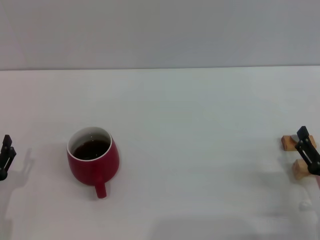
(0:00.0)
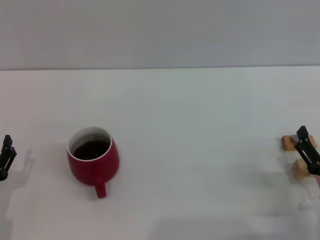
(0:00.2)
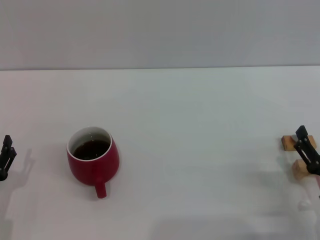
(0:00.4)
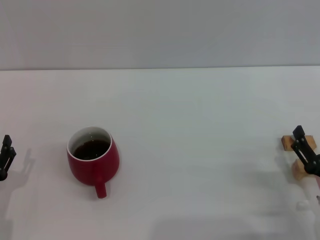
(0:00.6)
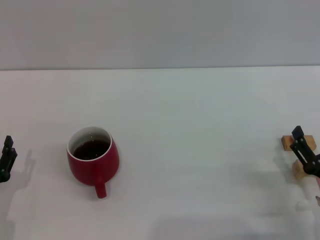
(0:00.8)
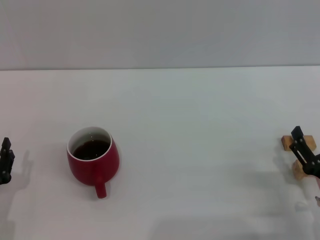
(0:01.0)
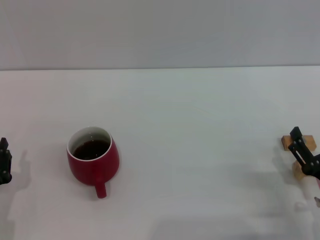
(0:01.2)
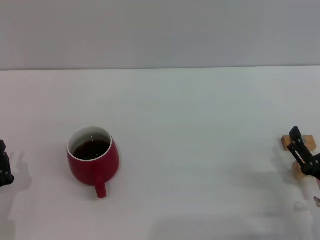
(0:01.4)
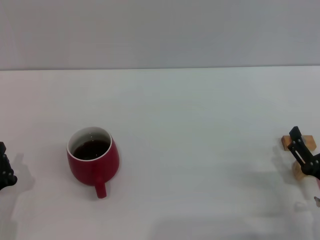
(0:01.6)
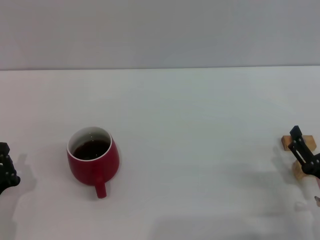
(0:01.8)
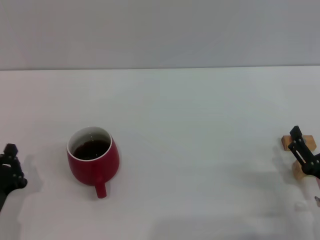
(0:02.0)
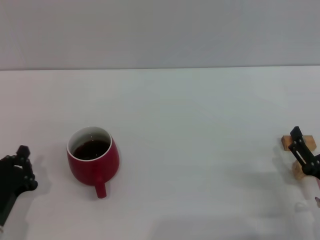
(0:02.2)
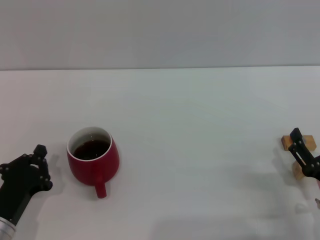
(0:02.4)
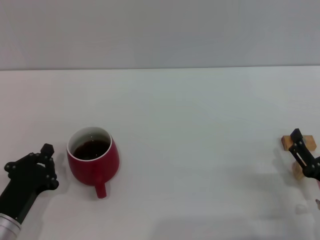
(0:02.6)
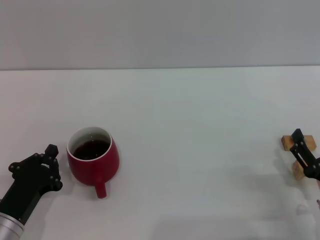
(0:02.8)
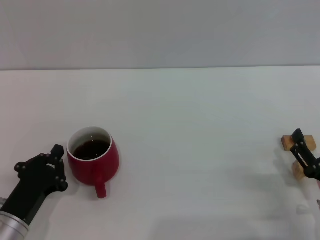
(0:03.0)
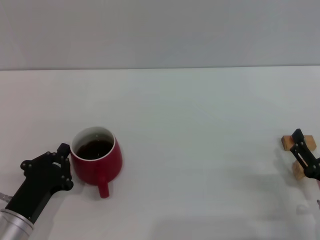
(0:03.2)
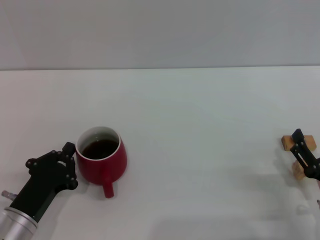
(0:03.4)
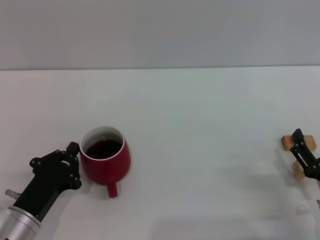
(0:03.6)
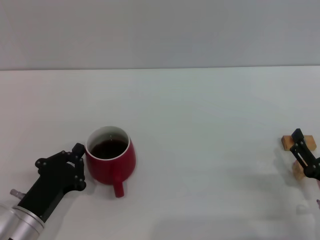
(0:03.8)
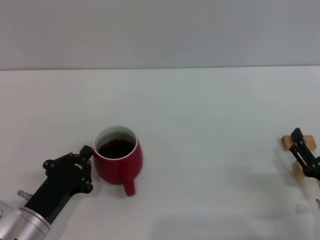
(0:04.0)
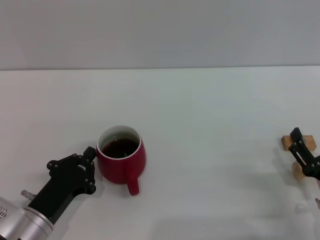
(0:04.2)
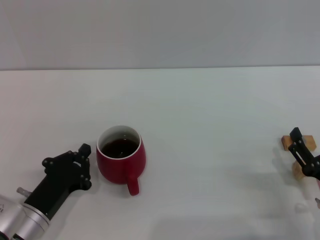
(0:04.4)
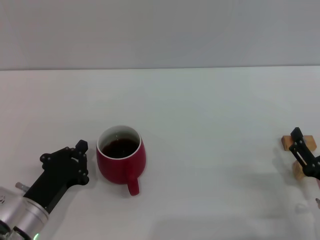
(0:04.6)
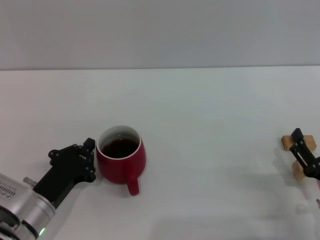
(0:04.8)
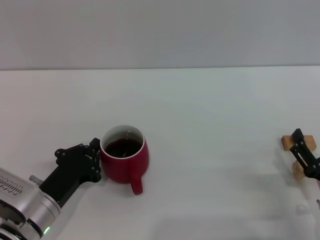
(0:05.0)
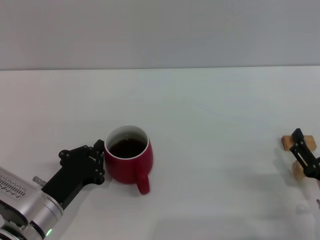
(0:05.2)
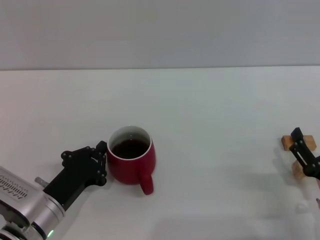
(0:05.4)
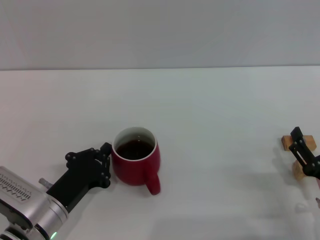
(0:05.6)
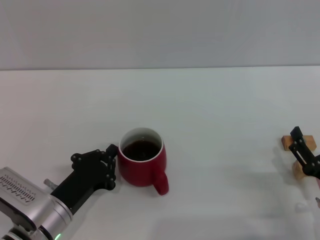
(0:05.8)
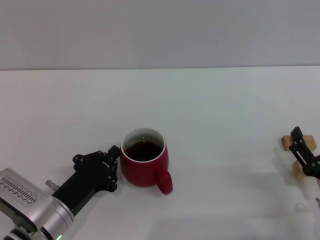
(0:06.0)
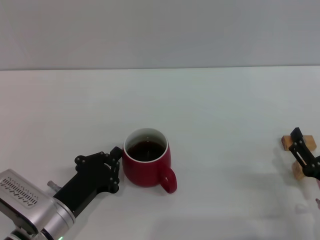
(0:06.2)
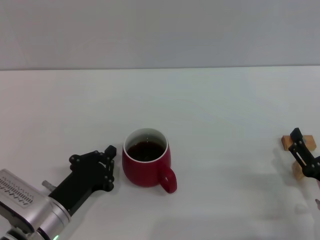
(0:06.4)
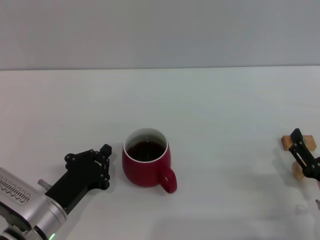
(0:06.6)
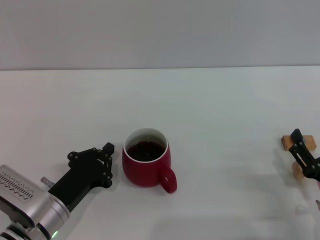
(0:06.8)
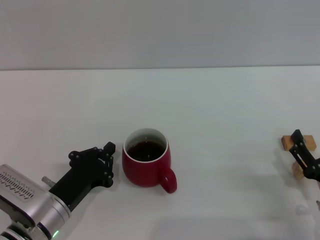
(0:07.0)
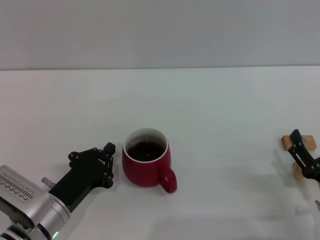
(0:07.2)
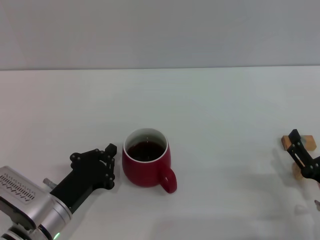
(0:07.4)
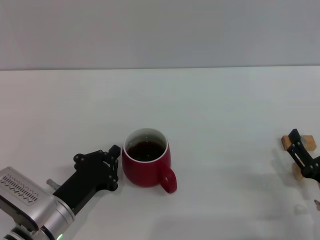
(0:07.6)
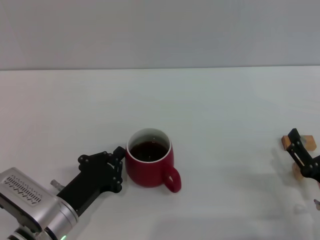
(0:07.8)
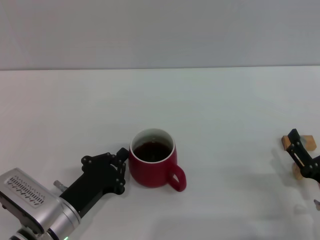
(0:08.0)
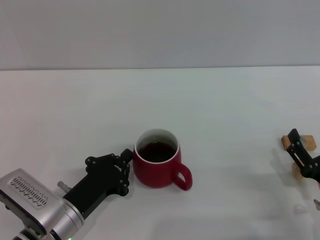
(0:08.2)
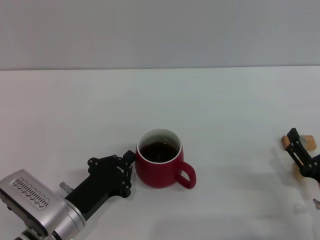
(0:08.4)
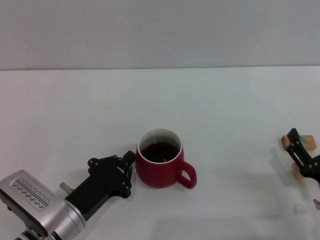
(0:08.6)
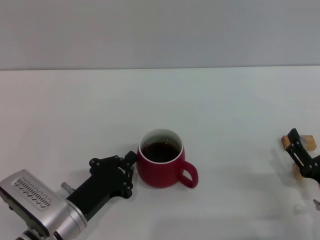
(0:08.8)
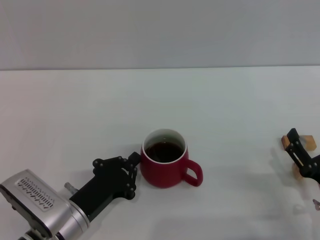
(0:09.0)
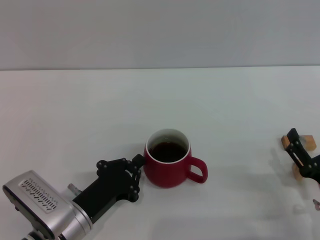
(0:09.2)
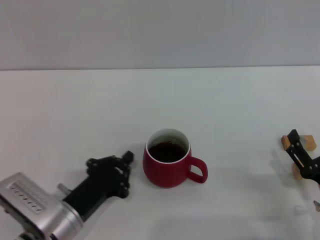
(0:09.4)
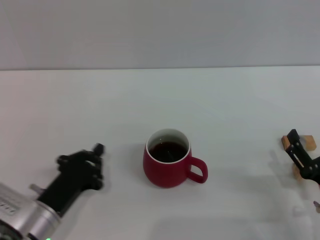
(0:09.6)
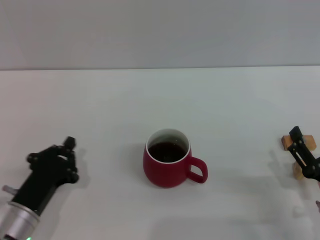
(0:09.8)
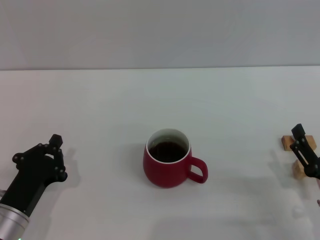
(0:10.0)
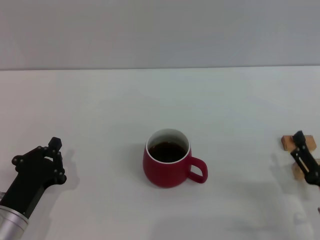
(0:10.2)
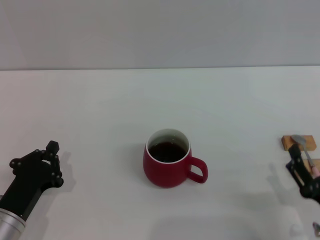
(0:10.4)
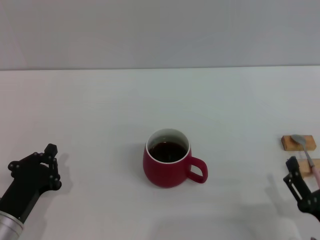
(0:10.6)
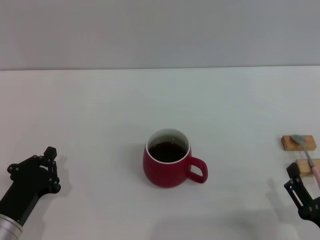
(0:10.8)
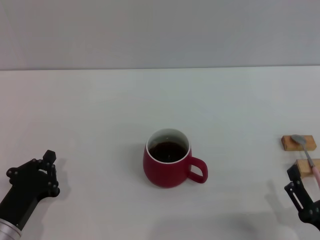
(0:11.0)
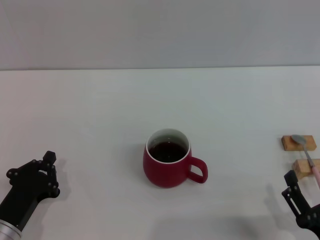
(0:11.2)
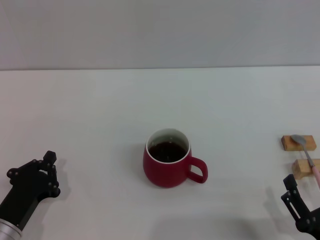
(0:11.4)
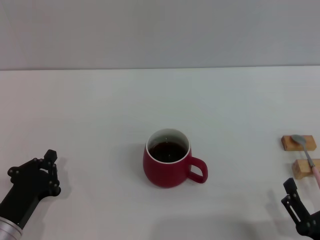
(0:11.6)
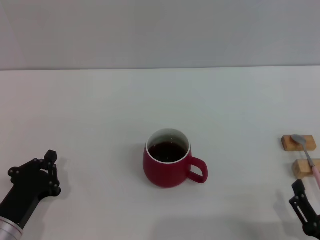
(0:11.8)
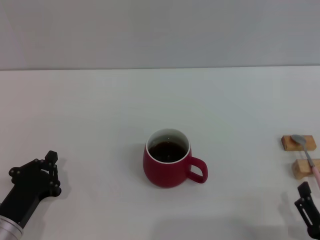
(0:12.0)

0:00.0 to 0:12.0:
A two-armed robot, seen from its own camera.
Task of the whole recording: Move the red cup to the center, lift the pink spoon, stir it three times in the cup, and put the spoon into the cup.
Step, 0:00.0 to 0:09.4: Move the cup with coffee to the center of view with the left gripper.
0:00.0 to 0:01.6: The left gripper closes its fingers.
0:01.6 to 0:03.0: There are only small adjustments of the grippers.
0:03.0 to 0:06.0: The grippers stay close to where they were, moving slightly.
0:06.0 to 0:07.6: The two grippers keep their place.
0:07.6 to 0:09.0: The grippers make only small movements.
0:09.0 to 0:10.4: The left gripper heads to the left, covering roughly 10 cm.
0:10.4 to 0:12.0: The right gripper is displaced backward by roughly 5 cm.

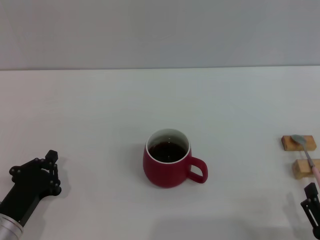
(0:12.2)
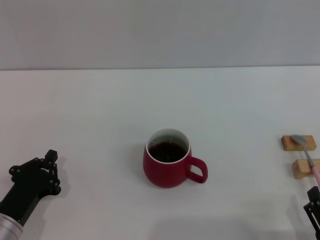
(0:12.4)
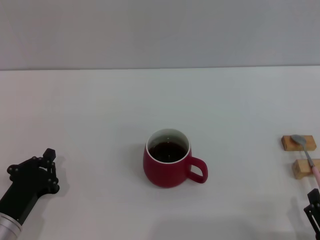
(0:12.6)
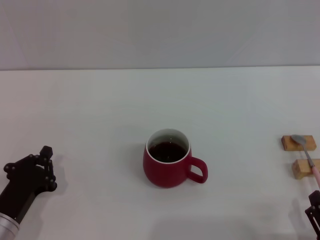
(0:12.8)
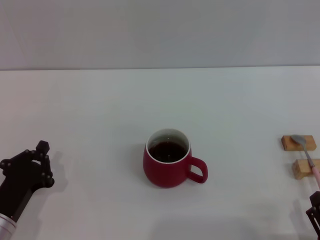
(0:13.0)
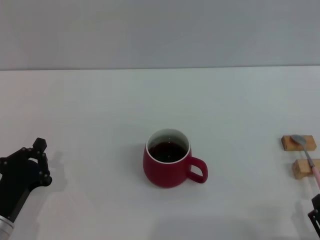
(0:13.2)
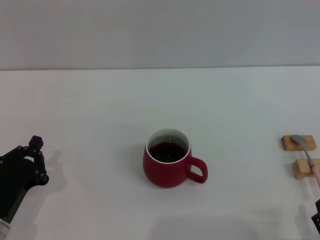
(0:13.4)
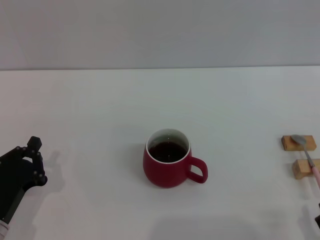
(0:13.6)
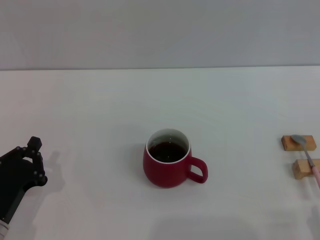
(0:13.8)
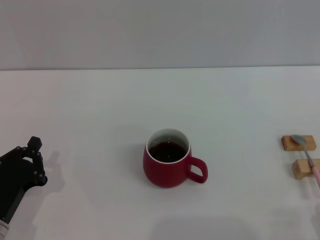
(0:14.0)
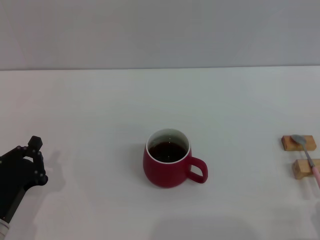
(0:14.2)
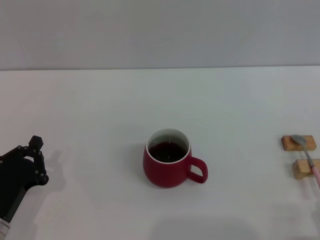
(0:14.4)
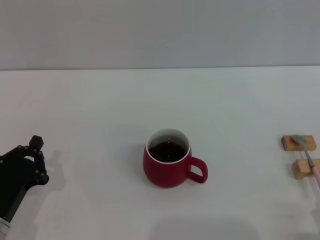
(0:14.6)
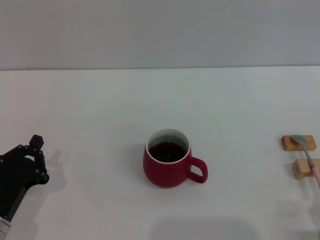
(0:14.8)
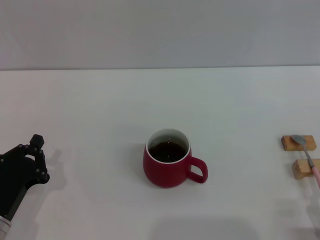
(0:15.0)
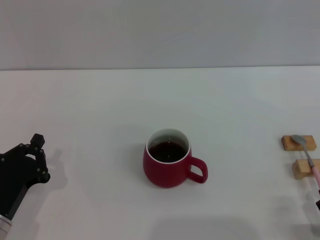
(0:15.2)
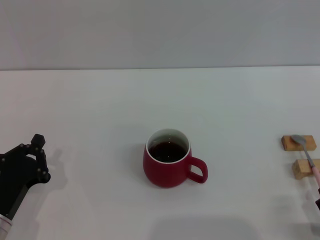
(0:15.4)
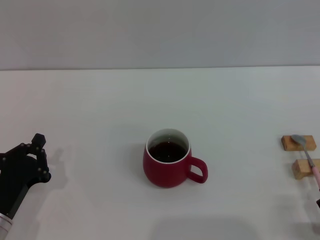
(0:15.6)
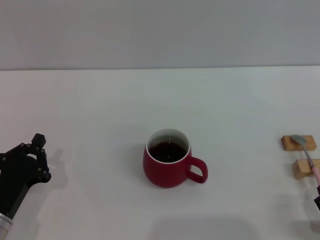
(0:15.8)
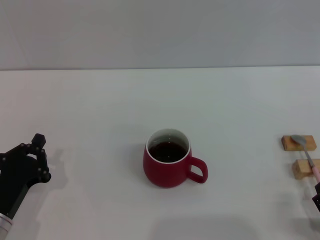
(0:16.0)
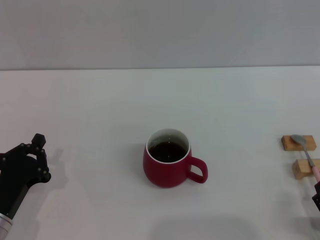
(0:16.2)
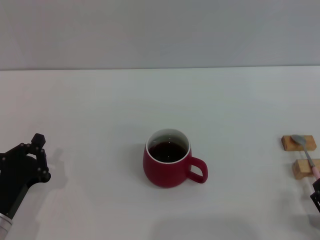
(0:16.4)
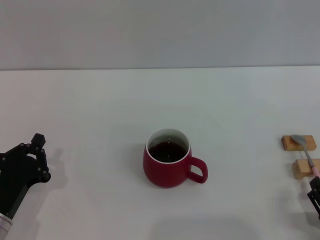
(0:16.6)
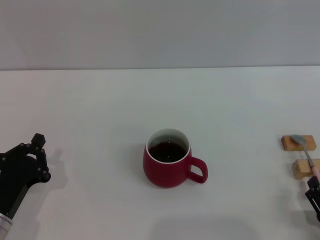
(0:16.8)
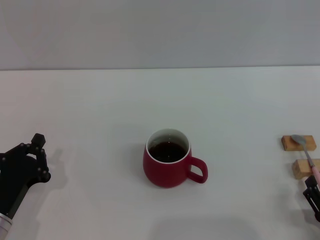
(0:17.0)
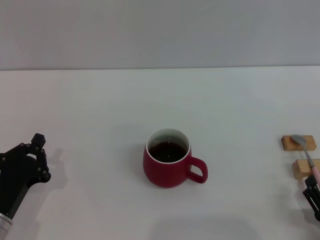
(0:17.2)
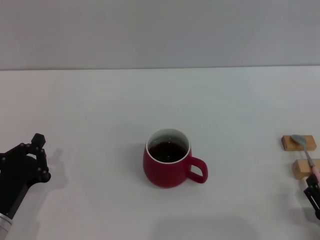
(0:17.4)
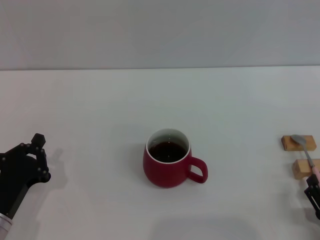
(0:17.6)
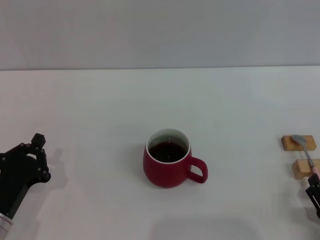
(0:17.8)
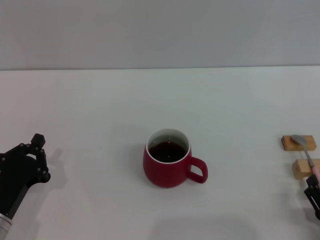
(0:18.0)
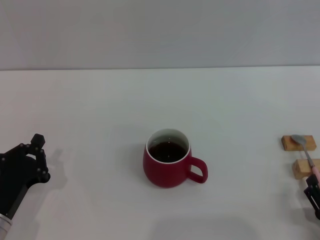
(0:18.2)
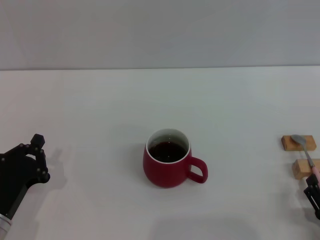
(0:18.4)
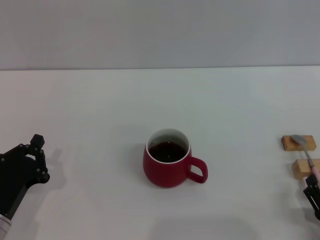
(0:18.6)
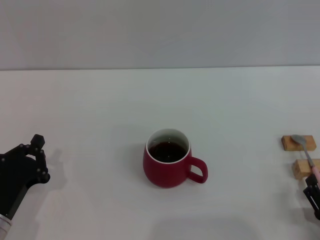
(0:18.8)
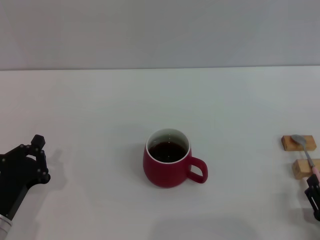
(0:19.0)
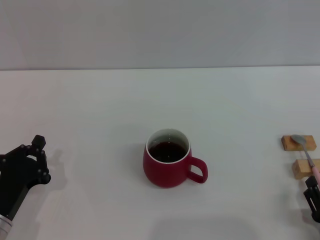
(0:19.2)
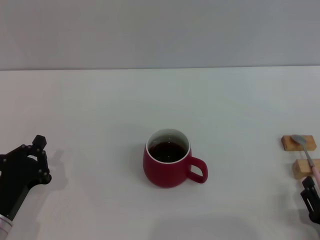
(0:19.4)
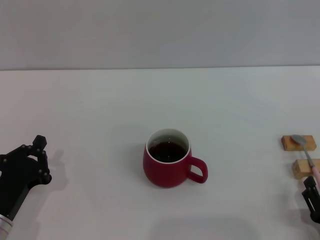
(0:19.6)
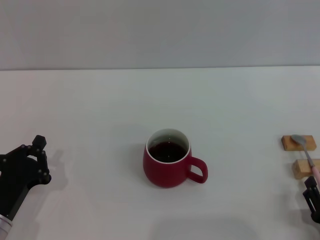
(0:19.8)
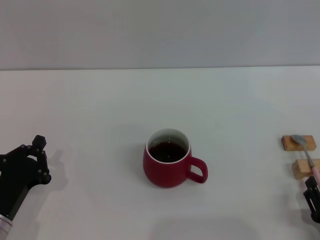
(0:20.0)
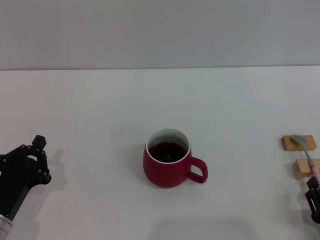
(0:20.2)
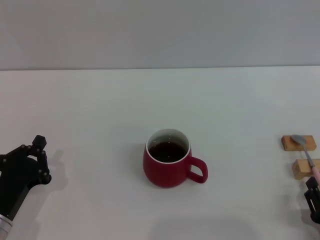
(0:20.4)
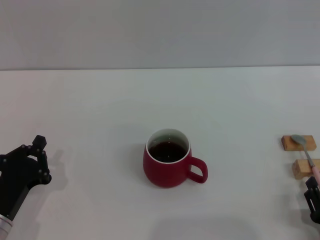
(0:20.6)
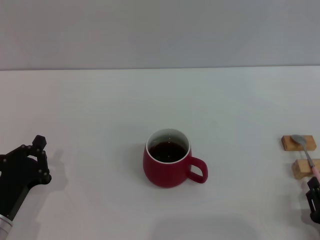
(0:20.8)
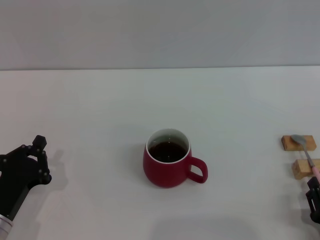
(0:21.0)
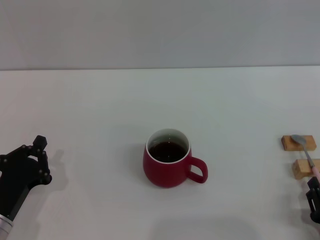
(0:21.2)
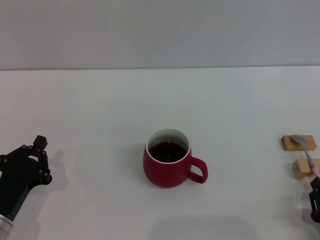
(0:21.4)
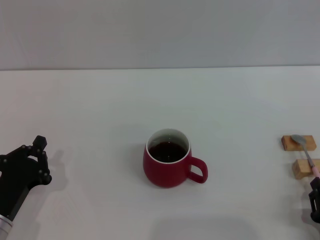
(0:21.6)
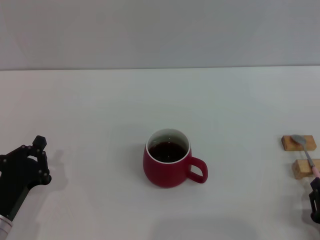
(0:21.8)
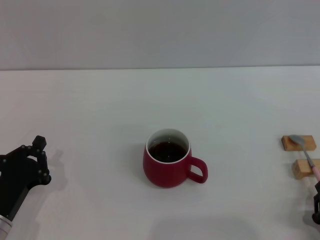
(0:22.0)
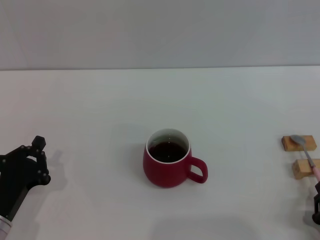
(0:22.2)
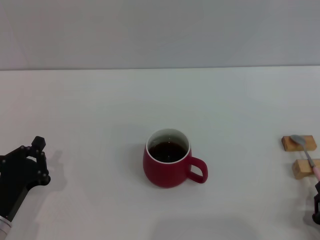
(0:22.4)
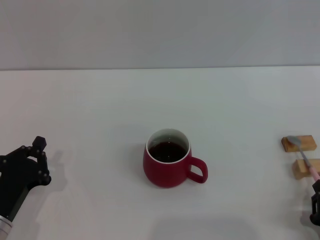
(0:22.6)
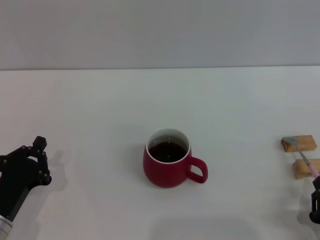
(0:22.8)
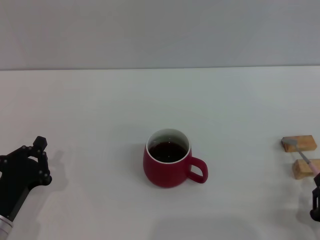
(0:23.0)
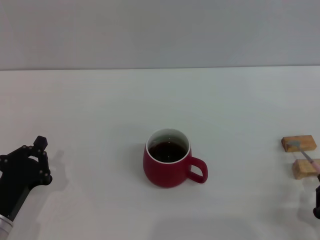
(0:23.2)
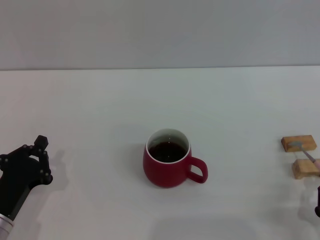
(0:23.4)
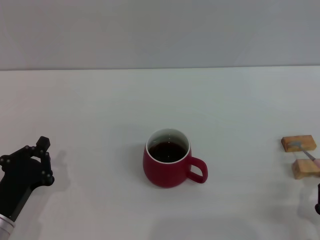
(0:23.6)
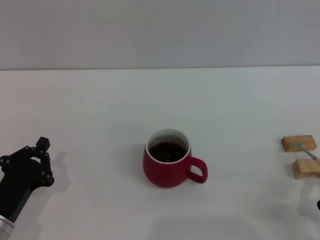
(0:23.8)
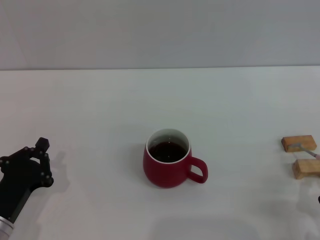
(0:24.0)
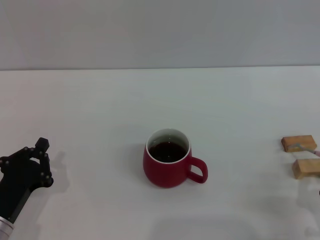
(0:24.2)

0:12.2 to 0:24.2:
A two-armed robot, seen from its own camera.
Task of the whole recording: Move the red cup to the center, lift the pink spoon, stir it three times in the cup, and put the spoon into the cup.
0:12.2 to 0:16.6: There are only small adjustments of the grippers.
0:16.6 to 0:21.2: Both grippers stay about where they are.
0:21.2 to 0:22.6: The right gripper closes.
0:22.6 to 0:24.2: The grippers stay close to where they were, moving slightly.
